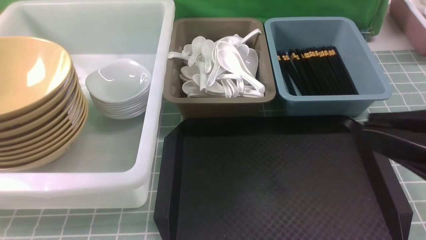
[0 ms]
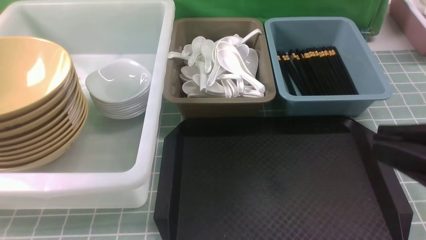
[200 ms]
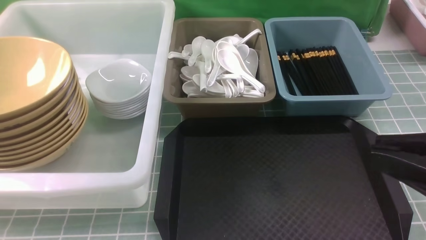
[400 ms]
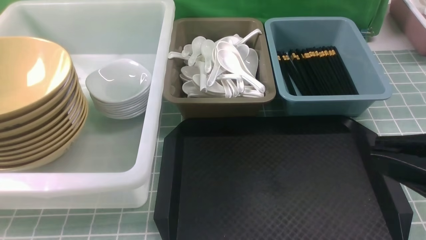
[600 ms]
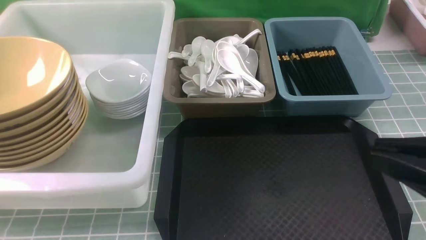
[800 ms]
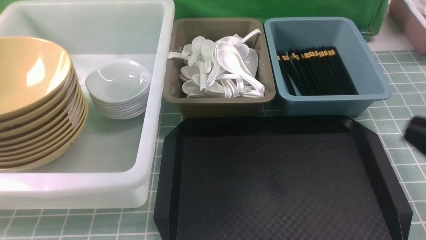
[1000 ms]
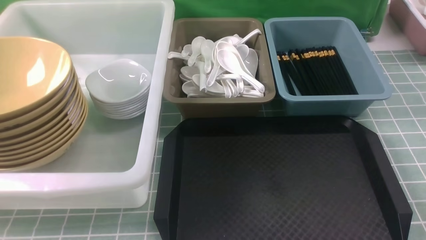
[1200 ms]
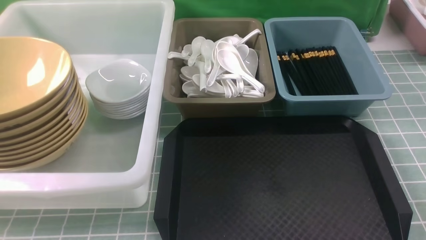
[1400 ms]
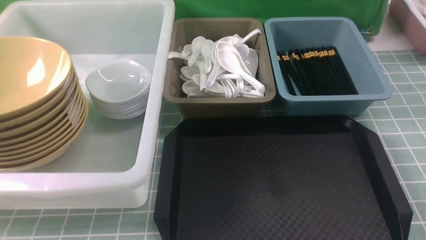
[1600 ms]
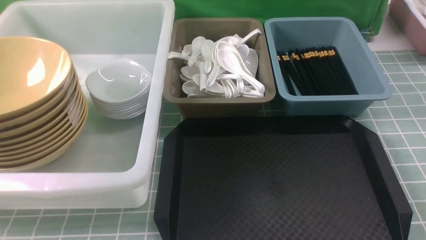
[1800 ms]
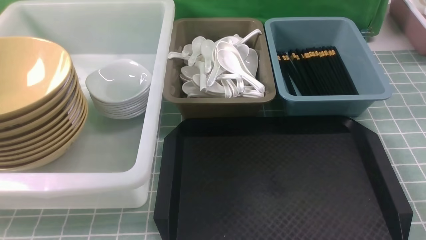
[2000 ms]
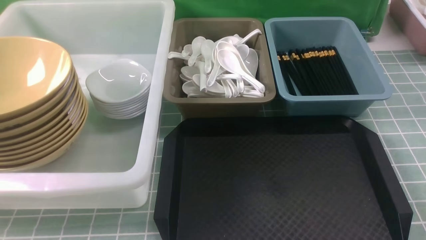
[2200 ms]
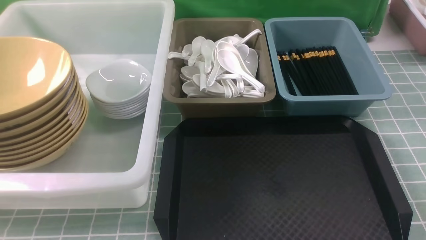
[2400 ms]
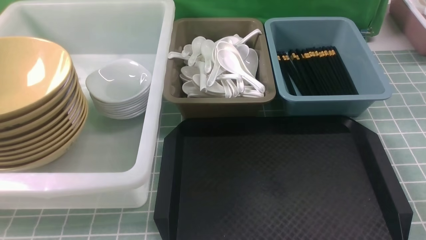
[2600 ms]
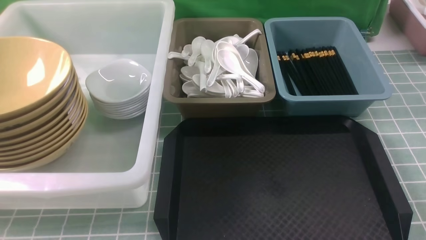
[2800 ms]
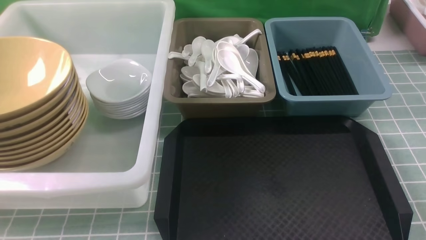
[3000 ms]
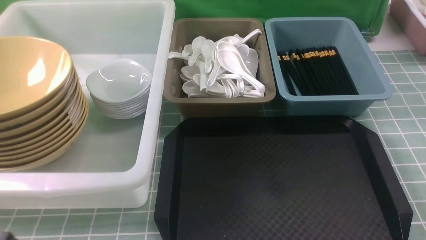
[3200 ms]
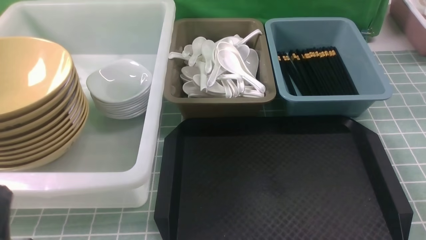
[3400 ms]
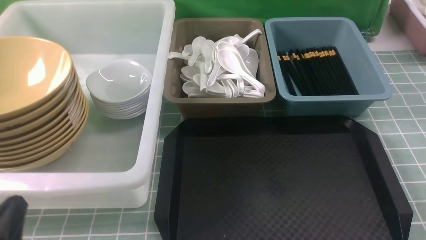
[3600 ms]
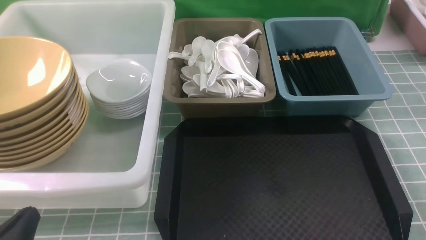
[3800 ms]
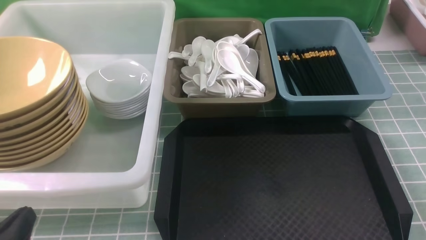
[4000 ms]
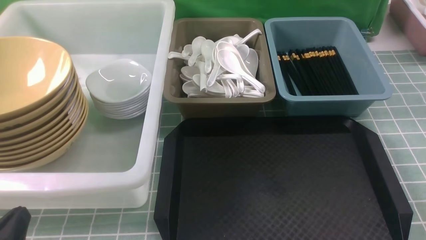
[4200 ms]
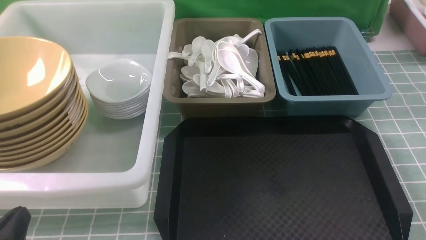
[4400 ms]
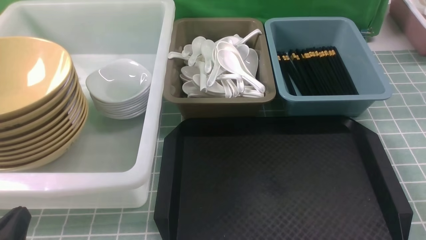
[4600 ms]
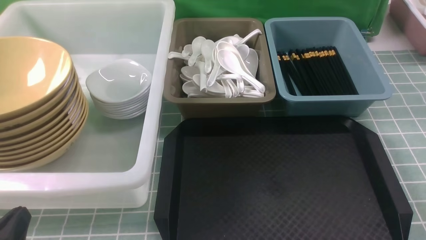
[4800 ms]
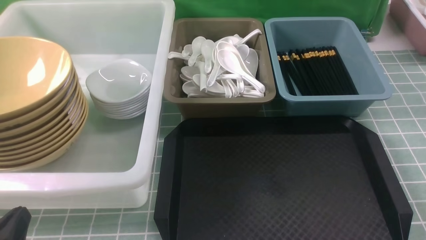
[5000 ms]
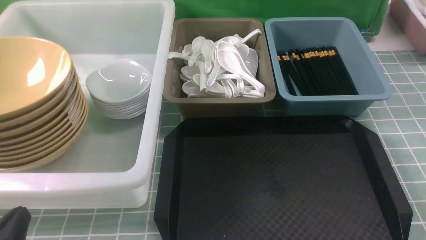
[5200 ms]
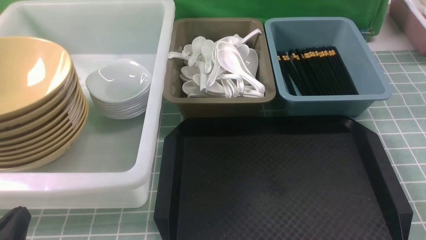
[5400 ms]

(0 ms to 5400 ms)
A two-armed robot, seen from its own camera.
Task of the whole recording: on blue table put chopsticks spoon bowls plates into blue grey white boxes.
0 ms - 1400 ms: The right gripper is displaced downward and to the right by approximately 20 cm.
2800 ms - 4000 ms: The left gripper travels downward by roughly 15 cm.
4000 ms - 5400 ms: Both grippers stay about where they are.

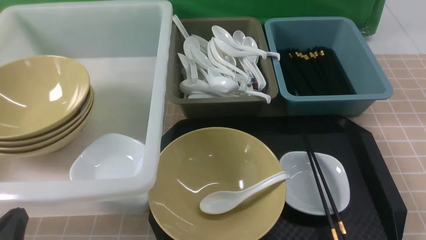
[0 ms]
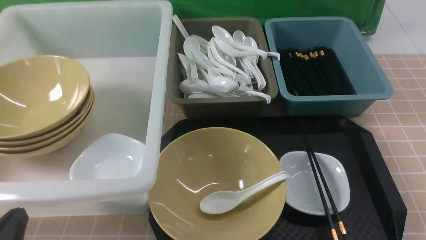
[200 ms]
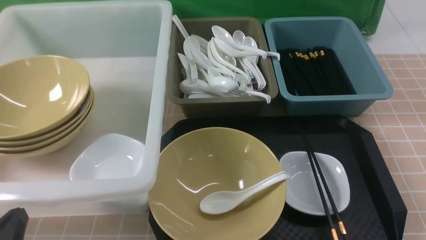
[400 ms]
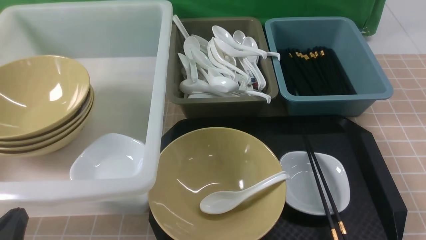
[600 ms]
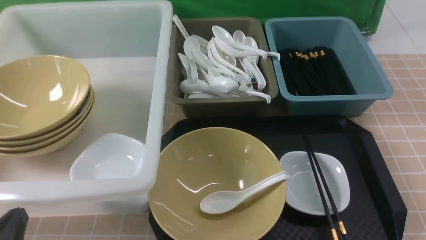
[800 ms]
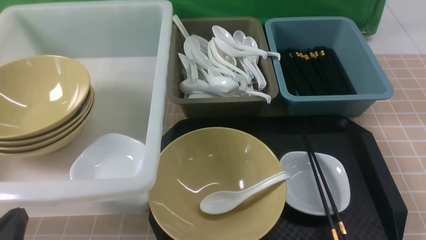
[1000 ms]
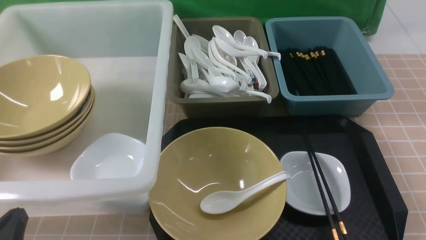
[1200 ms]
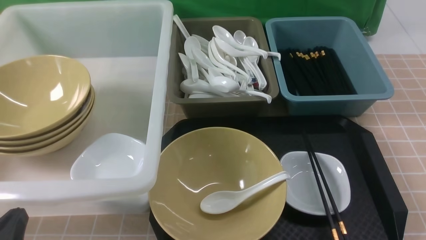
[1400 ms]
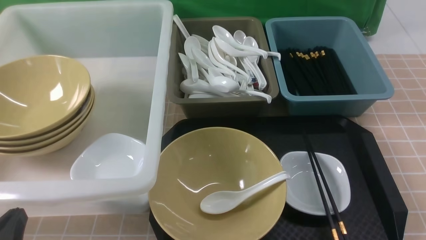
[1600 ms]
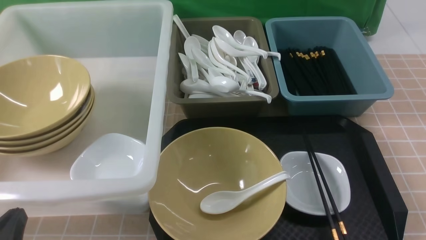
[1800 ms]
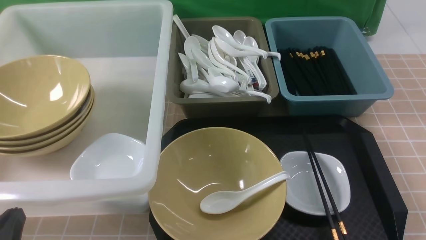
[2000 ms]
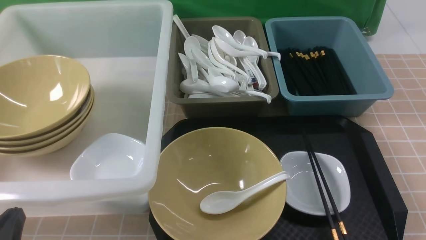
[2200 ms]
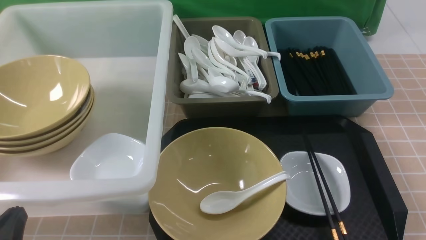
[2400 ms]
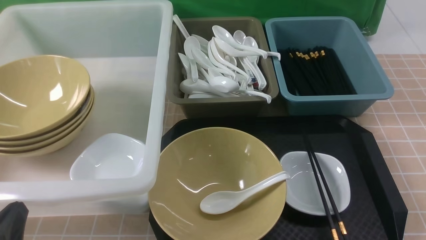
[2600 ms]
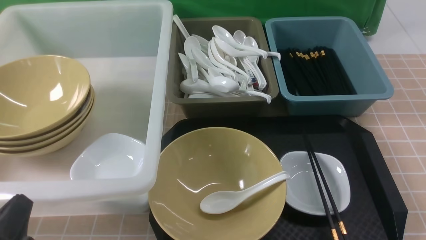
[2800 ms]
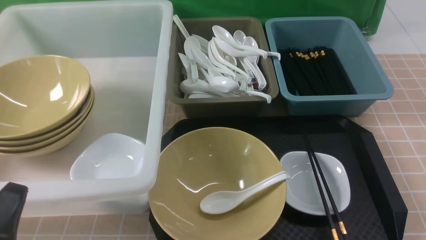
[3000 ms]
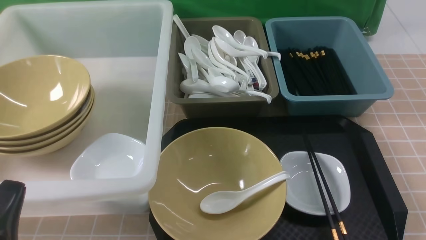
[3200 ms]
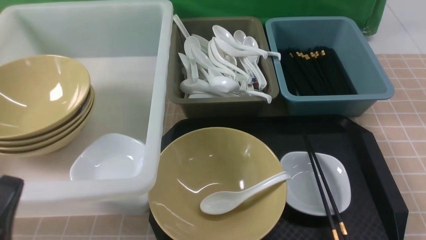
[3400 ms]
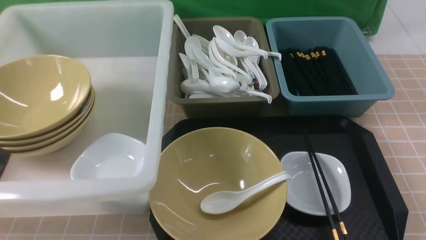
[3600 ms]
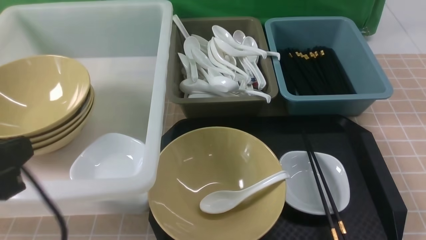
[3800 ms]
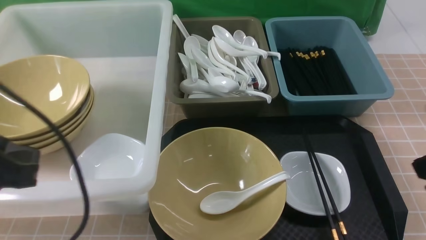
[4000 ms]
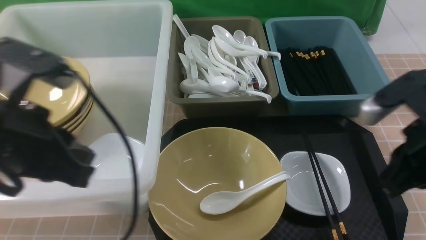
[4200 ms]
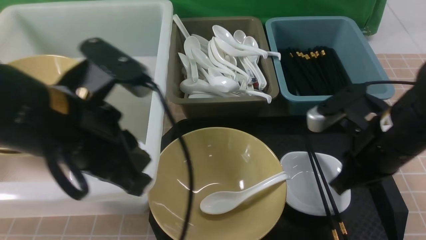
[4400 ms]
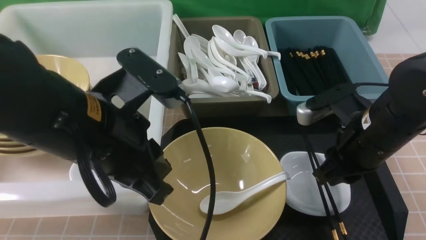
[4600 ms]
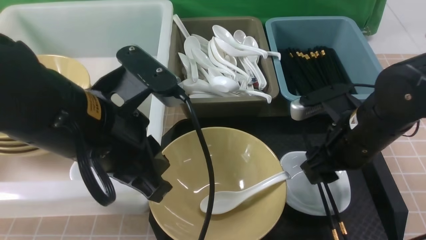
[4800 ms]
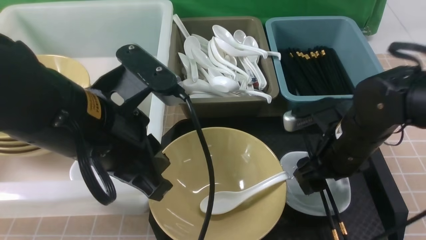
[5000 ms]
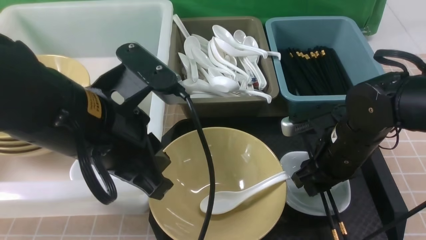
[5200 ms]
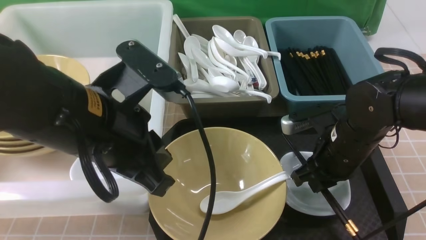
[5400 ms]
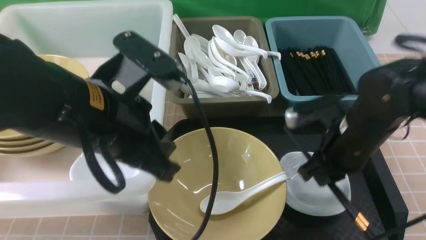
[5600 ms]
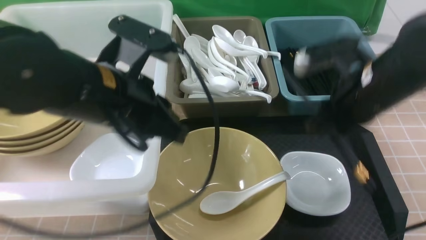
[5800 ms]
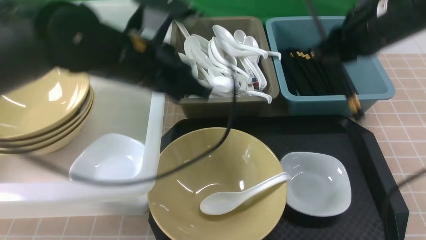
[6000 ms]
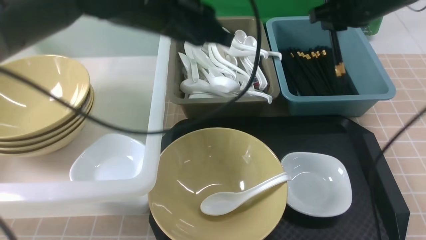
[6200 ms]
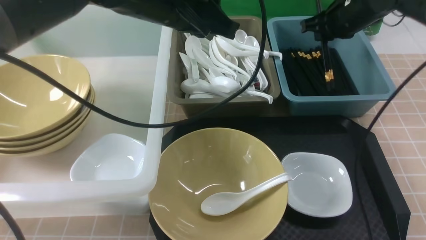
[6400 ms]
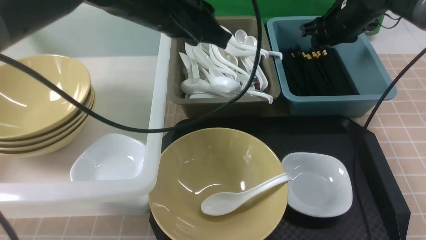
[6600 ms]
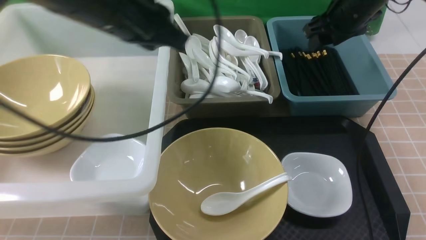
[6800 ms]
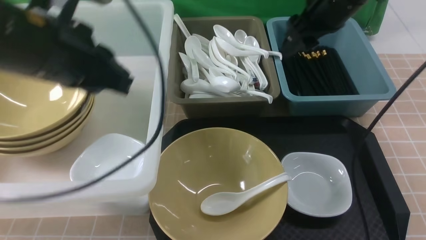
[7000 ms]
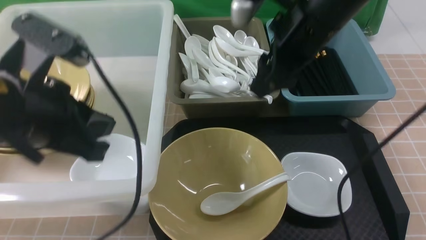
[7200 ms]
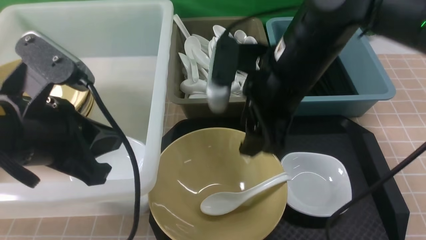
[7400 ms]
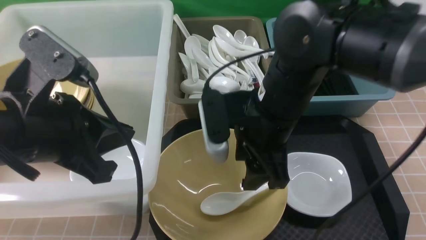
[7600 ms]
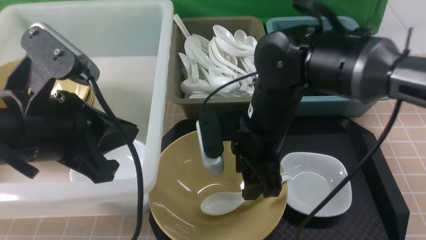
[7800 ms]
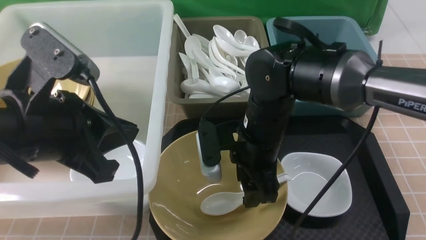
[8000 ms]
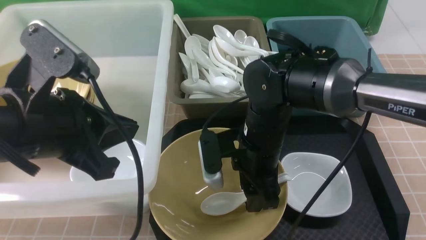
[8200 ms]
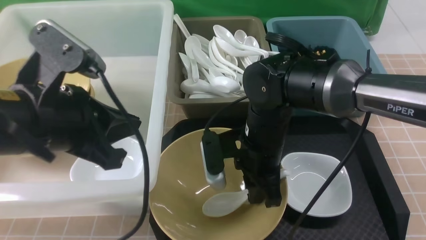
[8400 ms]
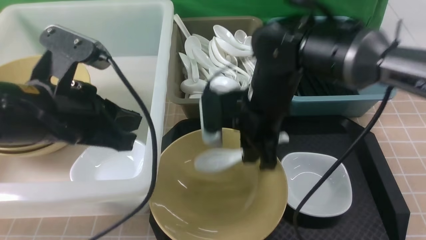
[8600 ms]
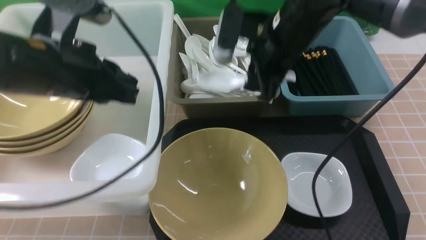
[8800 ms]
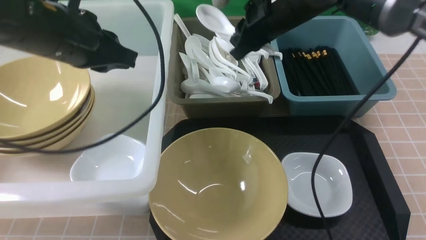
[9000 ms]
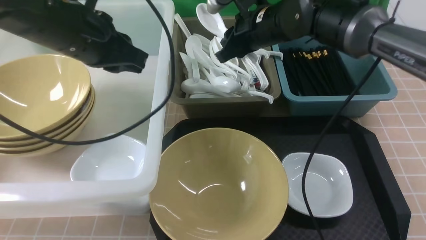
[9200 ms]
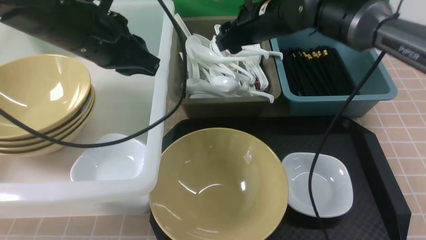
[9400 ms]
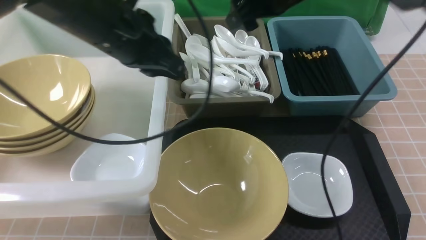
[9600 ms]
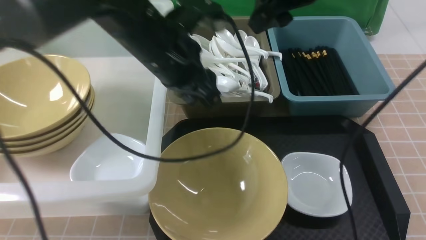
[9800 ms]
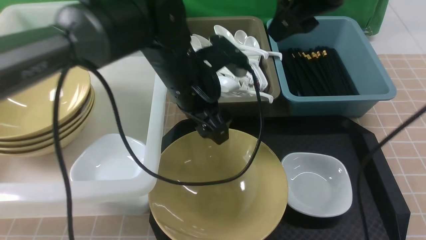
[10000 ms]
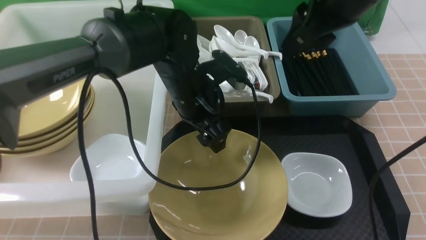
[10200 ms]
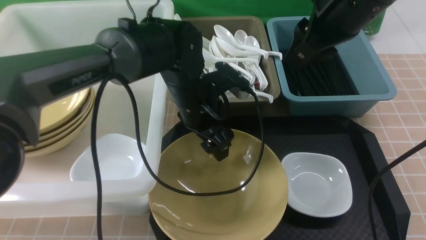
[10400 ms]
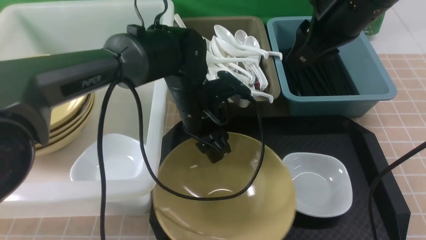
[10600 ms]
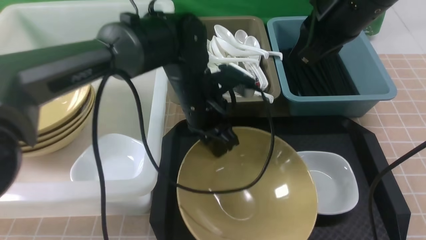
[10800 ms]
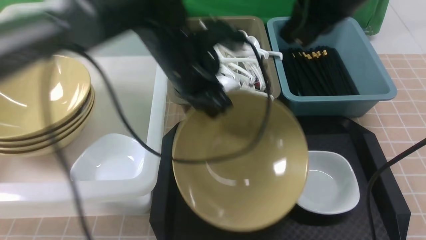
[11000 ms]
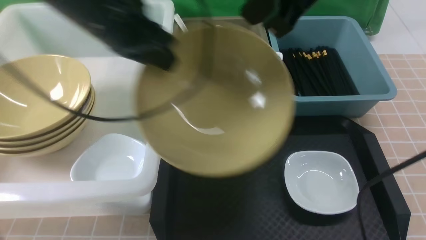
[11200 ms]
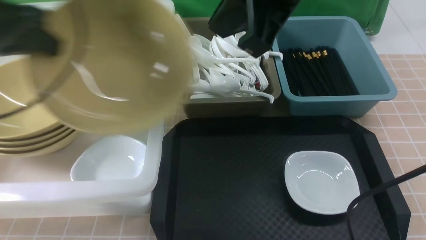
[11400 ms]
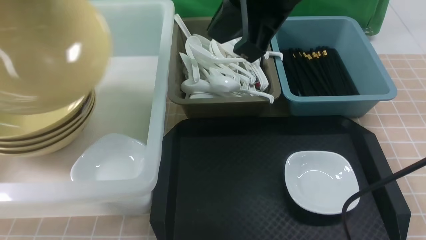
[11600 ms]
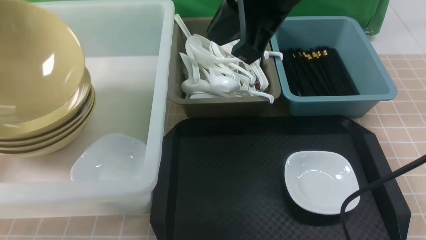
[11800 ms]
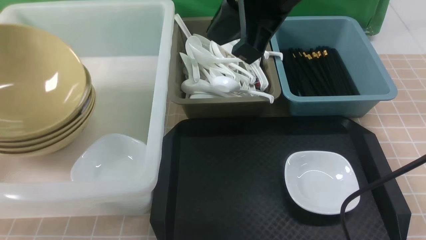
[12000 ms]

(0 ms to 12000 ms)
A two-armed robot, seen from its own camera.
Task of the whole recording: on brown table put chopsticks spoon bowls plates into blue grey white boxes.
Step, 0 ms - 5600 ms: use the right arm to grab the chopsticks.
Step, 5800 ms - 6800 ms: use the right arm to put the chopsticks into the small storage box on the right.
Step, 7000 ms - 8400 ms: use the right arm to grab the soup spoon in the middle.
Step, 8600 ms - 9400 ms: use the right arm to put the soup spoon into the small storage box in the middle.
Step, 9600 ms - 10800 ms: use the left arm to grab the yellow noodle bowl on the left.
0 ms - 1600 ms: Both grippers stay put.
3000 ms - 4400 ms: The right gripper shifts approximately 25 cm forward, to the left and upward; the left gripper moves upward, forward and to the right, about 20 cm.
4400 ms - 6000 ms: The right gripper travels forward and upward by approximately 15 cm, and opens, then closes again; the left gripper is displaced forward and to the right by about 10 cm.
6000 ms - 7600 ms: The right gripper is displaced to the left, backward and downward by roughly 15 cm, and opens up; the left gripper heads backward and to the left, covering approximately 15 cm.
7600 ms - 9000 ms: Both grippers travel together forward, approximately 15 cm. The right gripper closes.
9000 ms - 10400 ms: The left gripper goes roughly 20 cm to the right and downward, and opens up. Meanwhile the right gripper shifts some 15 cm backward, upward and to the right, and opens, then closes once more.
10400 ms - 12000 ms: The right gripper shifts roughly 10 cm to the left, backward and upward, and closes. The left gripper travels to the left by some 40 cm, and closes up.
